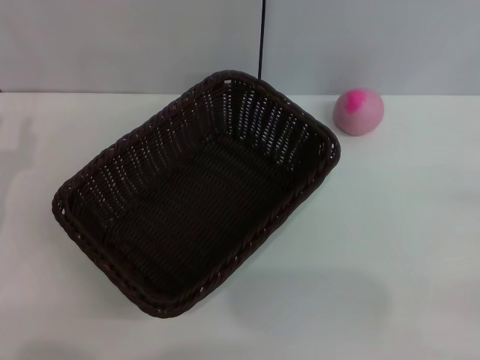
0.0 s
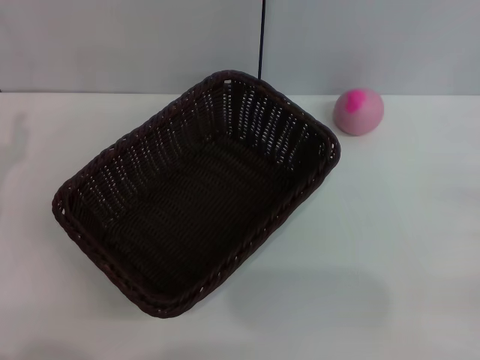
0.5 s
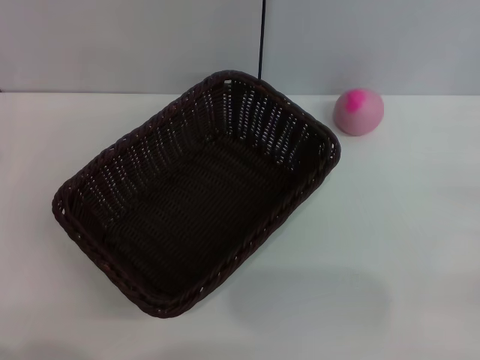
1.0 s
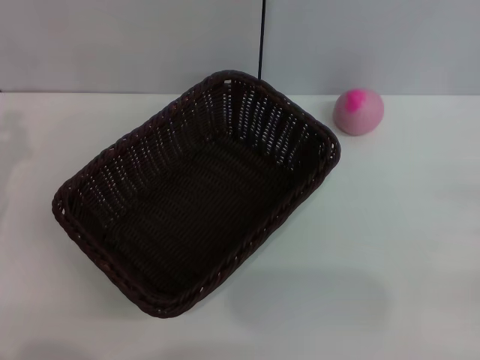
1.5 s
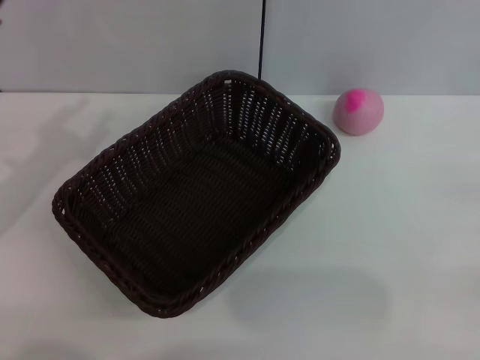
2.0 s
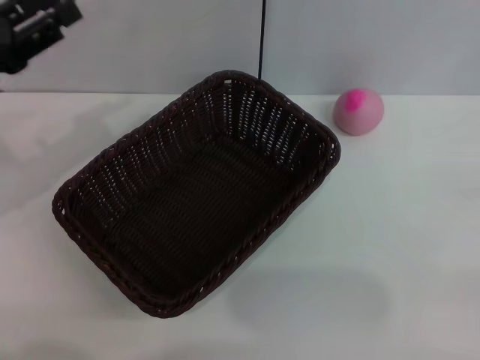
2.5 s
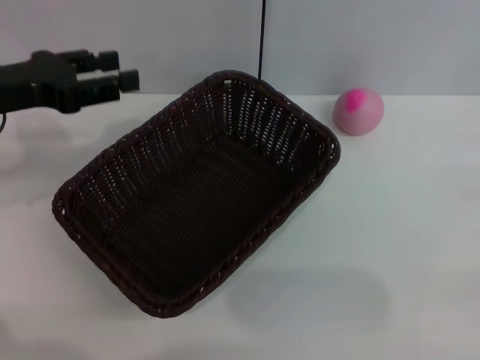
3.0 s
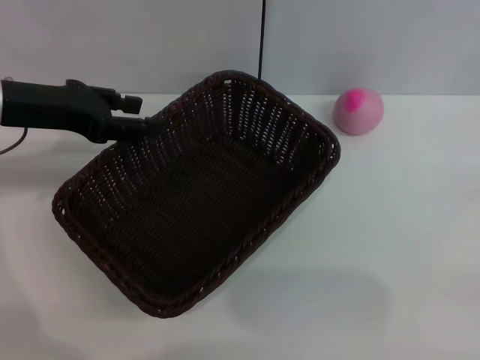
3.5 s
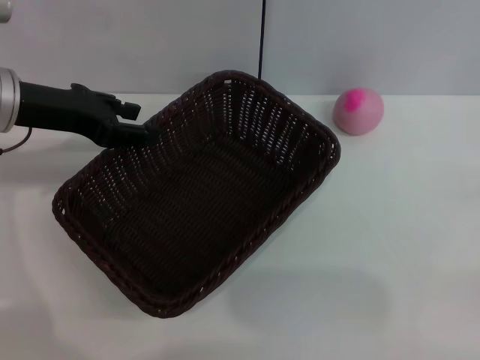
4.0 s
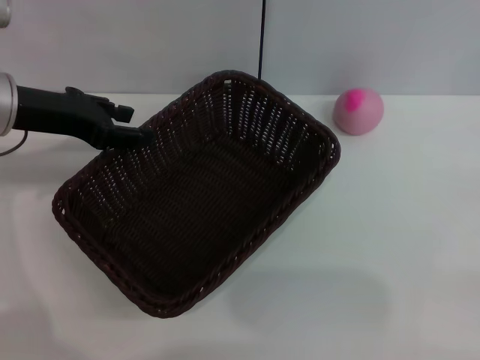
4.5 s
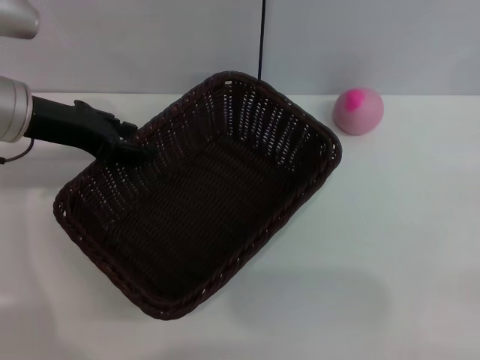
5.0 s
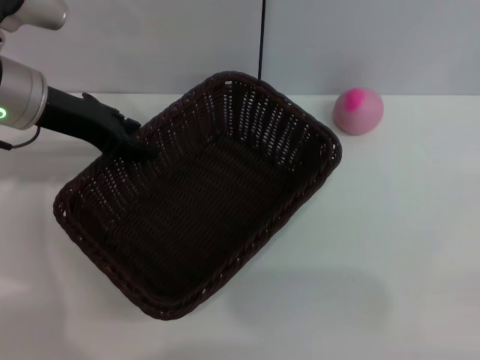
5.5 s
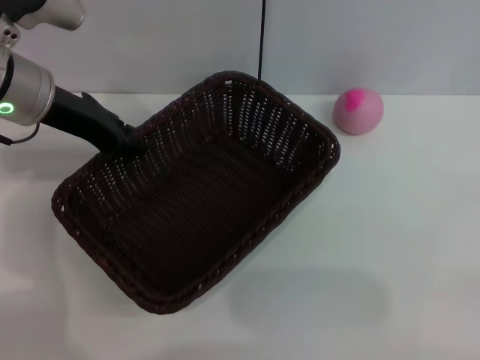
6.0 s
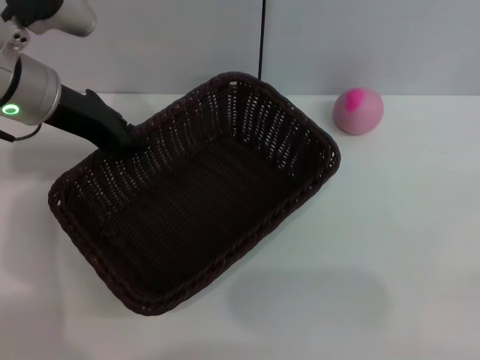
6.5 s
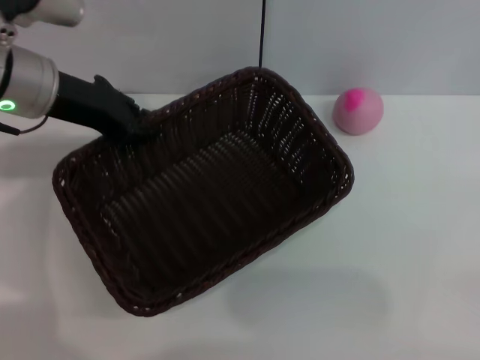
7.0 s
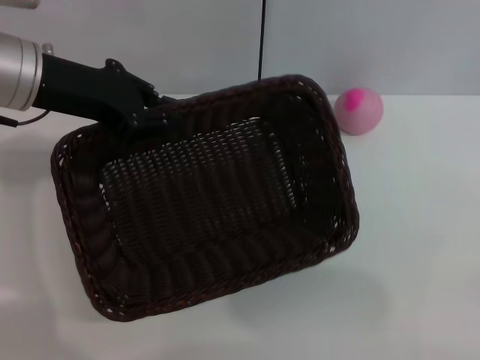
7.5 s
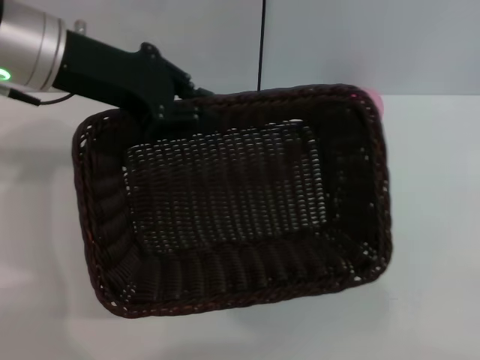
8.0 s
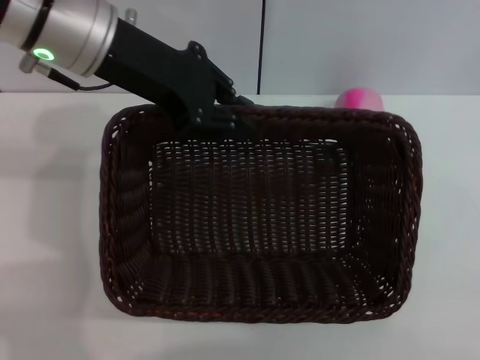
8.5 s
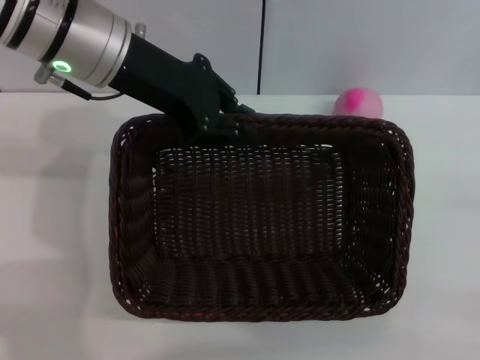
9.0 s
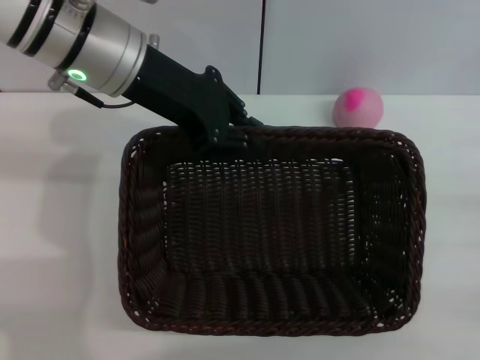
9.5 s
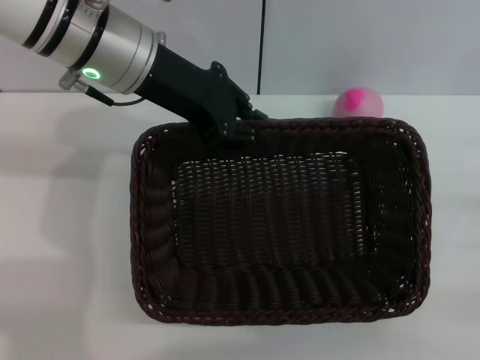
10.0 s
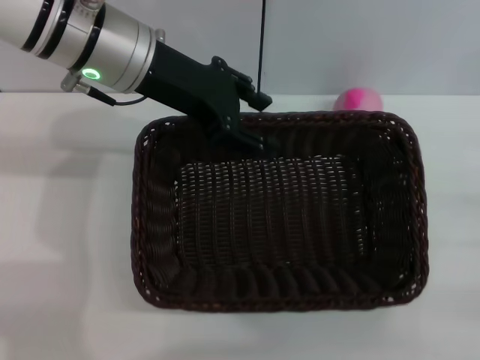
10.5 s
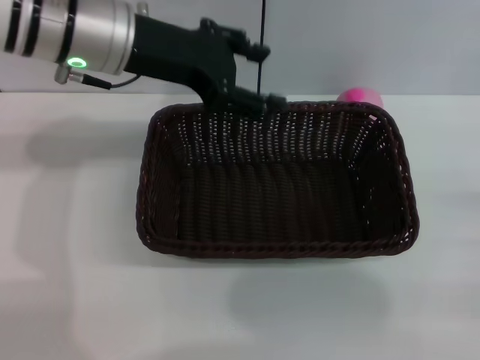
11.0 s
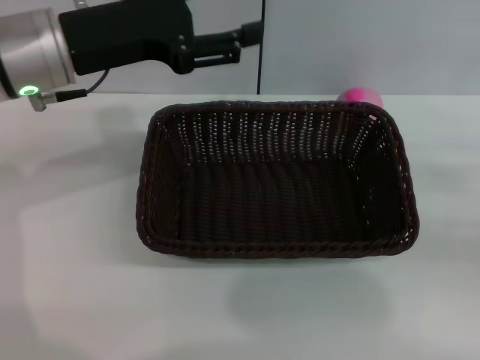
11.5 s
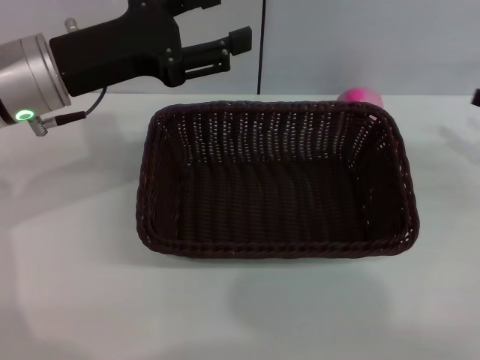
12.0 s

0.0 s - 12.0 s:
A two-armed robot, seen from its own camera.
Step, 0.0 s - 7.0 s: Pick up the dark basket with the left gripper.
Step, 7.5 s - 10.5 s: Place the dark basket in the center of view with the right gripper.
2.0 s - 4.0 s: The left gripper is displaced forward, to the right and upward by approximately 10 cm.
4.0 s - 6.0 s: The grippers move only a little.
6.0 s - 8.0 s: The left gripper moves upward, some 5 cm.
8.0 s - 10.0 s: The left gripper moves to the right, approximately 5 cm.
10.0 s - 12.0 s: The left gripper heads to the left, covering roughly 5 cm, and opens its fingers. The right gripper is displaced forward and upward by some 15 cm.

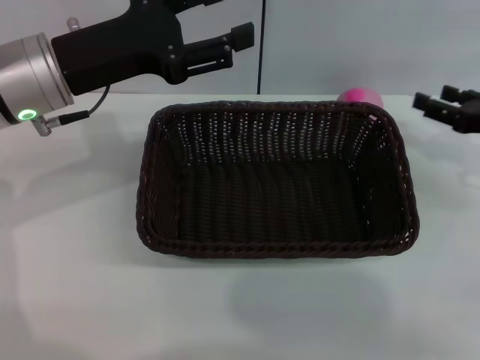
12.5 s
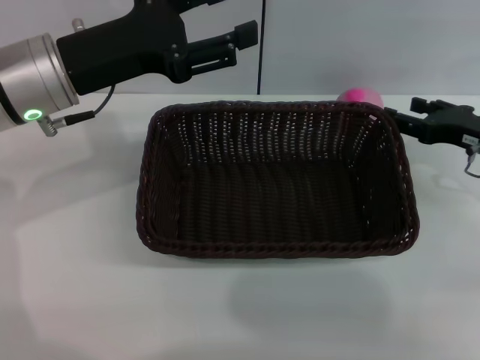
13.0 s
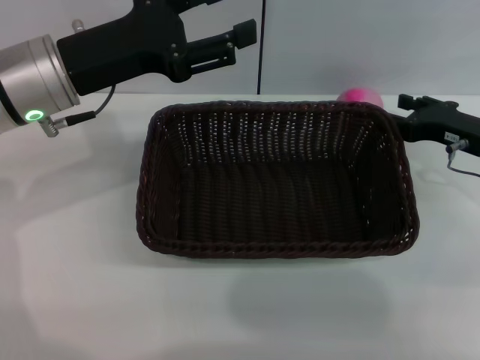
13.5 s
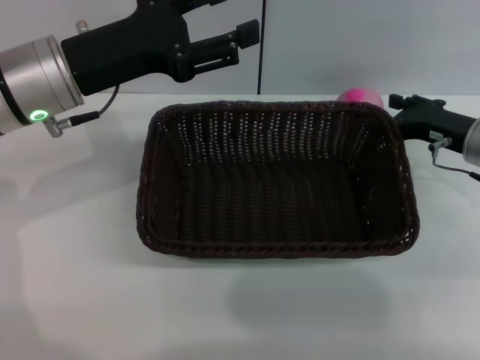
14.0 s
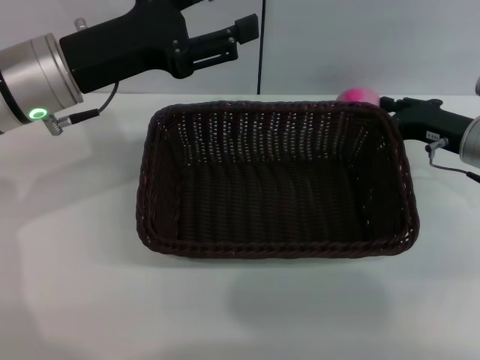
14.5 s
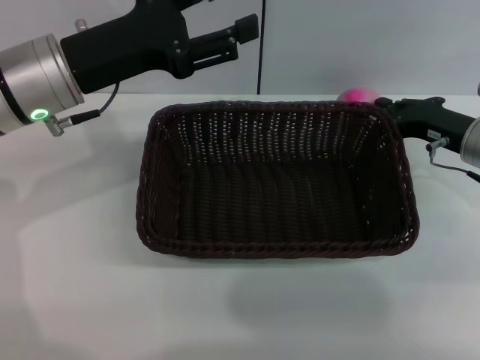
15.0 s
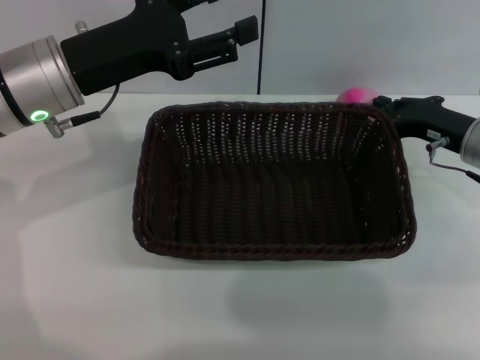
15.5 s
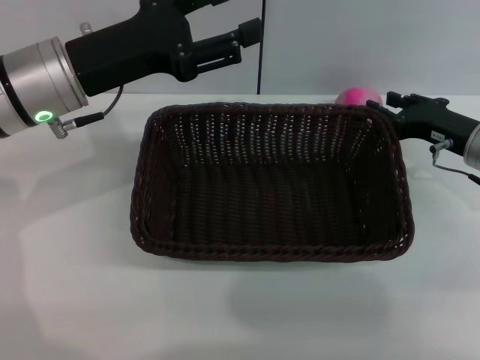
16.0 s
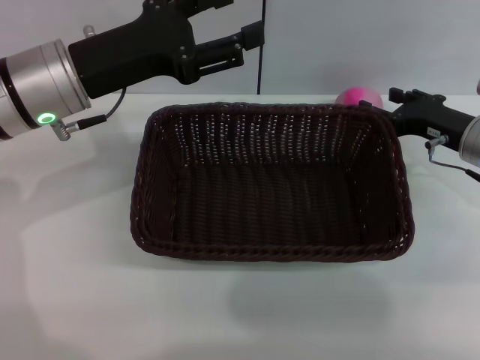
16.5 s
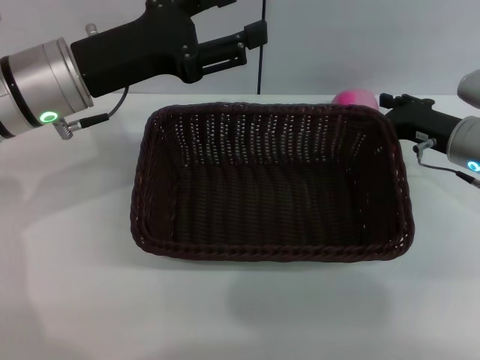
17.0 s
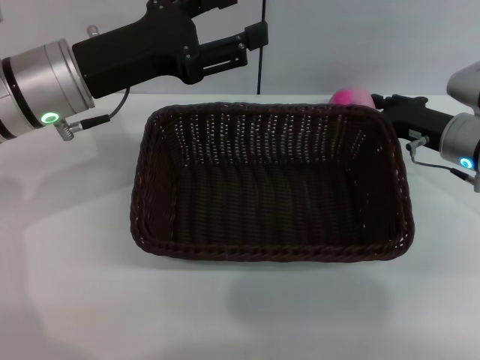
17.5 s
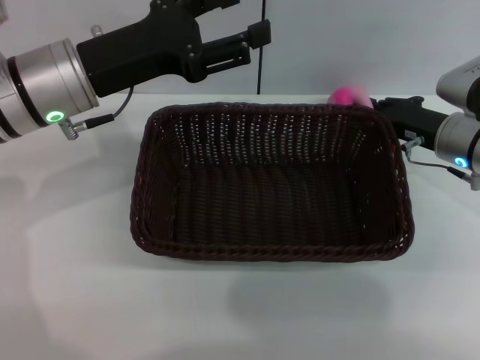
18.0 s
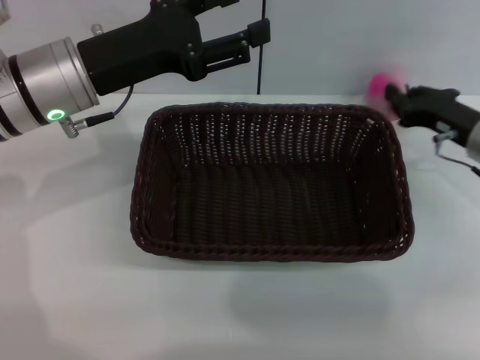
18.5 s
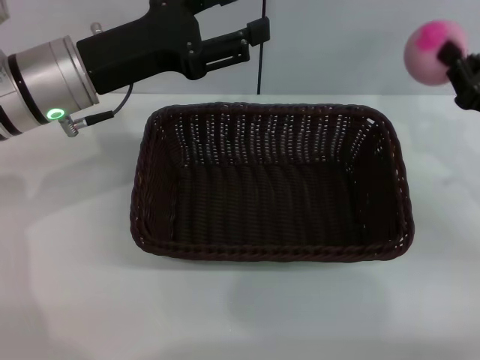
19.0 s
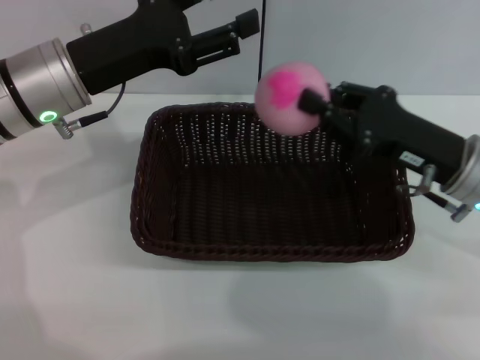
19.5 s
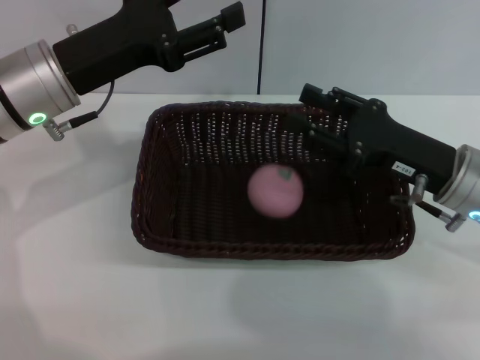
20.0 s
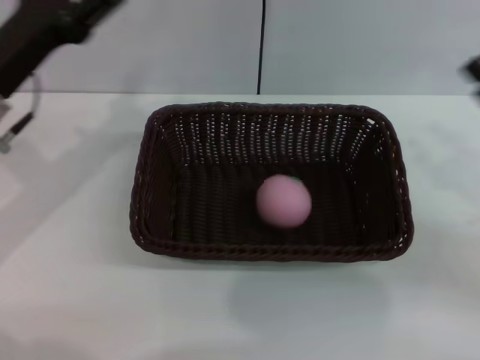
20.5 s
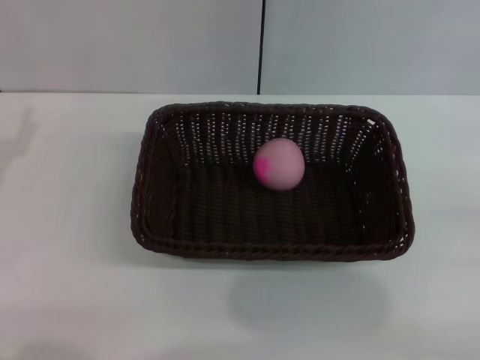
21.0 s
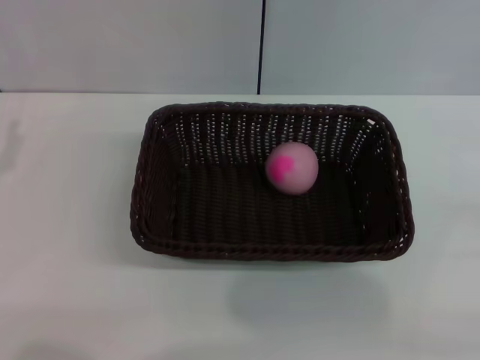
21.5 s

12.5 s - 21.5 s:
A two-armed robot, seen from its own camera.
Step, 12.5 s - 18.5 s: Pick up the peach with the left gripper.
12.5 s - 14.5 s: The right gripper moves to the left, about 5 cm.
14.5 s - 17.0 s: The right gripper closes and opens again.
17.0 s - 19.5 s: The right gripper heads backward, covering about 5 cm, and closes its fingers.
19.5 s - 21.5 s: The right gripper heads to the right and backward, covering some 25 cm, and opens up. The left gripper heads to the left, backward and downward, covering some 20 cm.

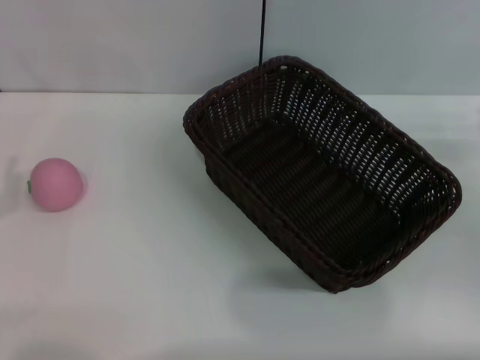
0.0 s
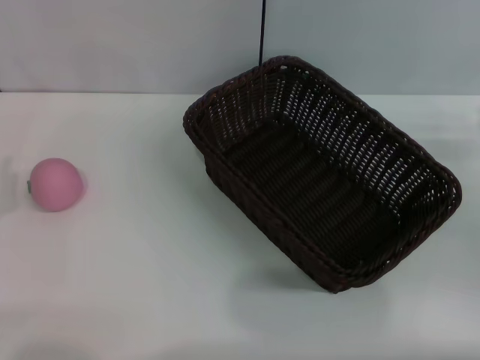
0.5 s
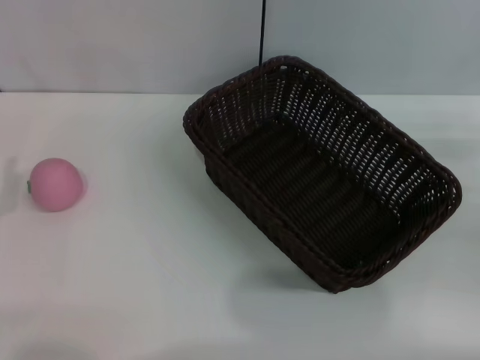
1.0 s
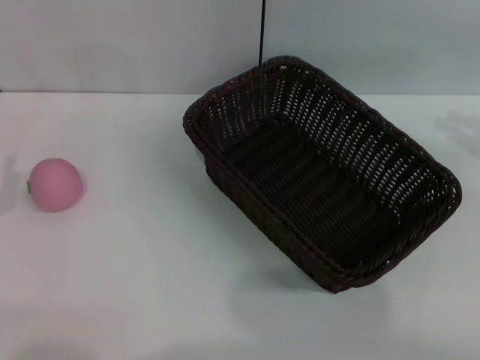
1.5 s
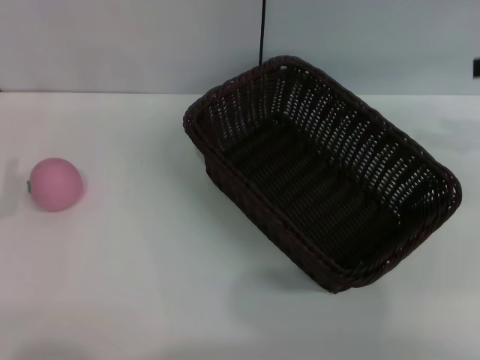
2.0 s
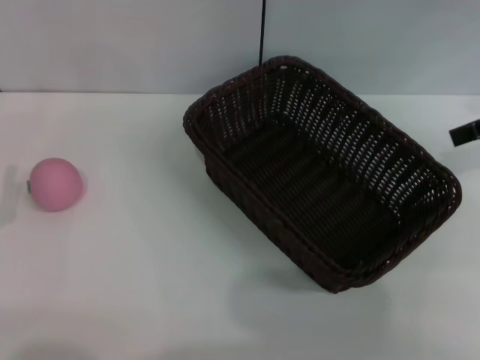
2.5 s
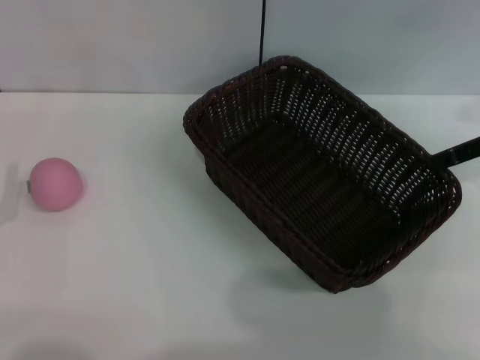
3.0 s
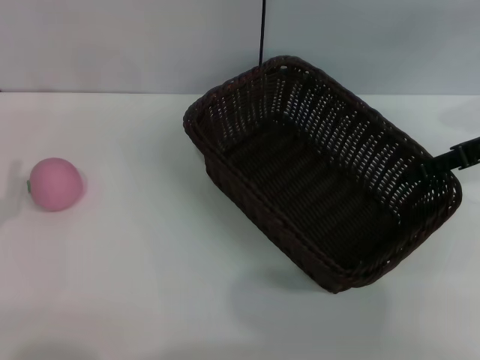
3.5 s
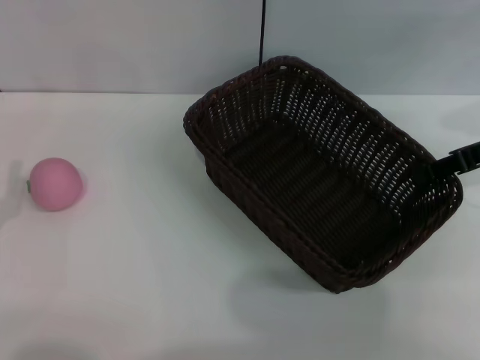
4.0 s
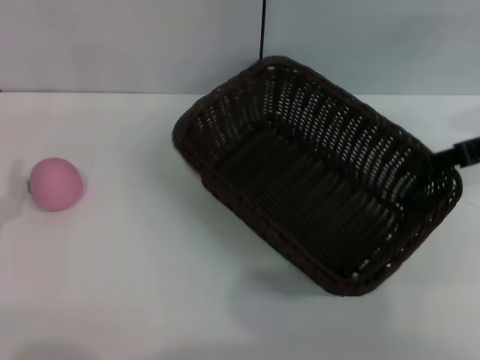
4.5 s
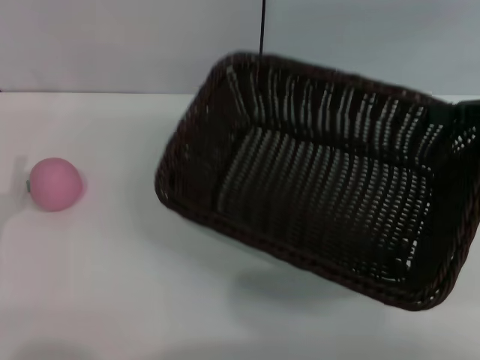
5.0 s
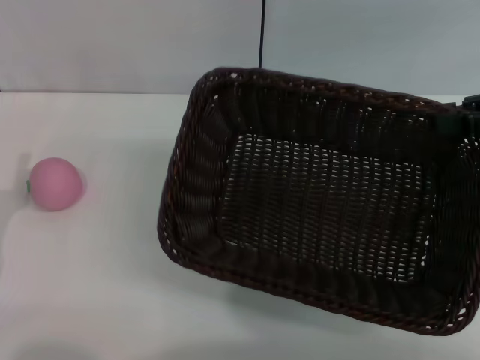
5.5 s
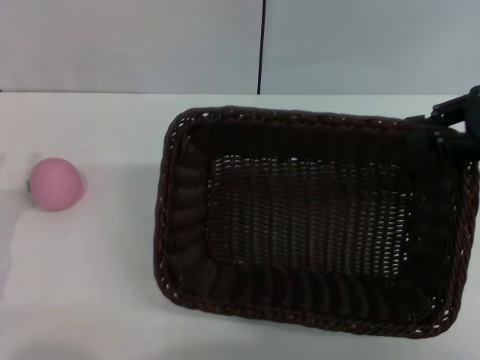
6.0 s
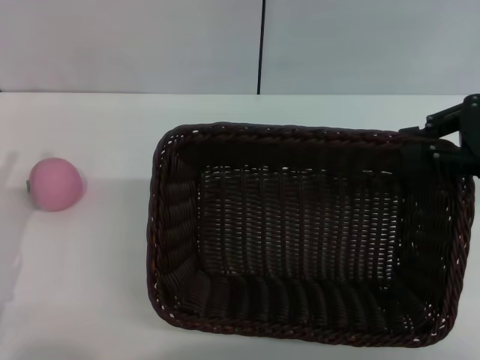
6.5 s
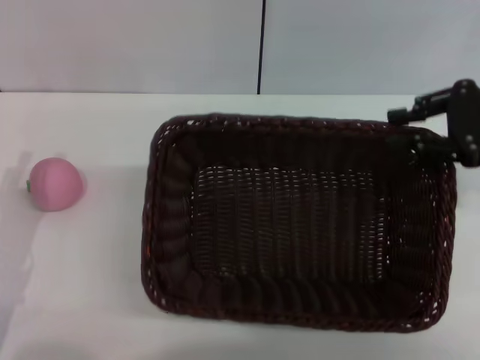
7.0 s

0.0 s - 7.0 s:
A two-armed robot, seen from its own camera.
Step, 0.0 s - 4.5 s: Pick up the dark basket with the right gripper.
2.0 s - 3.5 s: The right gripper shifts about 10 cm downward and to the left.
3.5 s - 5.0 s: The right gripper shifts by about 5 cm, and closes its fingers.
